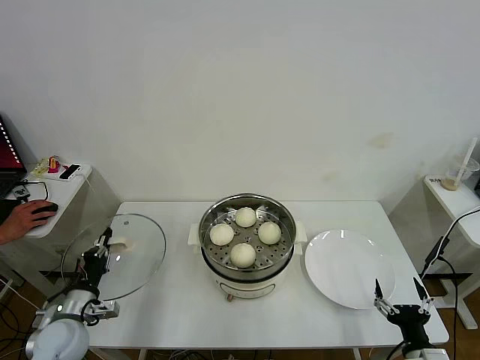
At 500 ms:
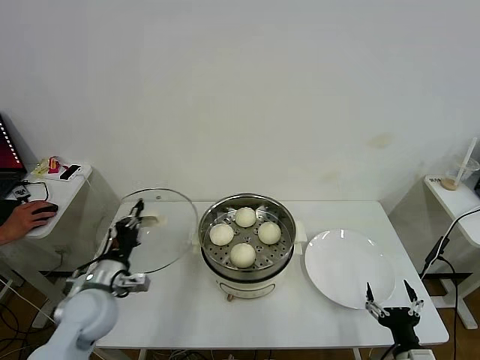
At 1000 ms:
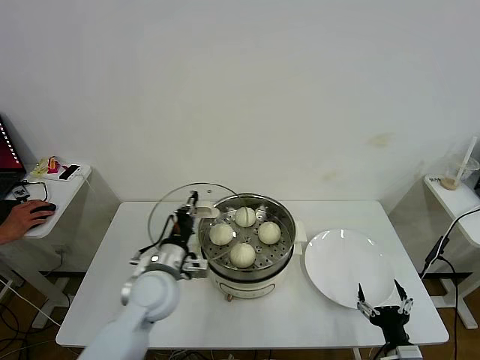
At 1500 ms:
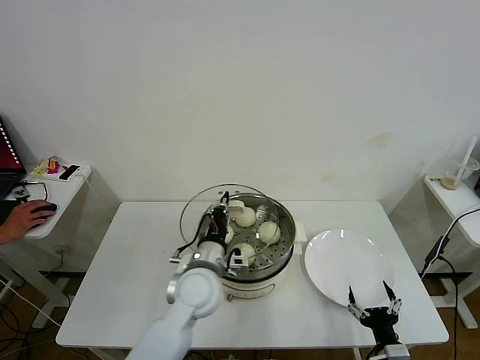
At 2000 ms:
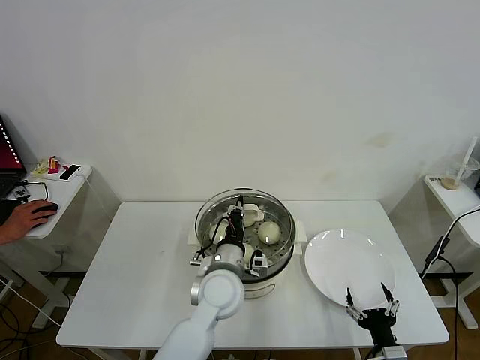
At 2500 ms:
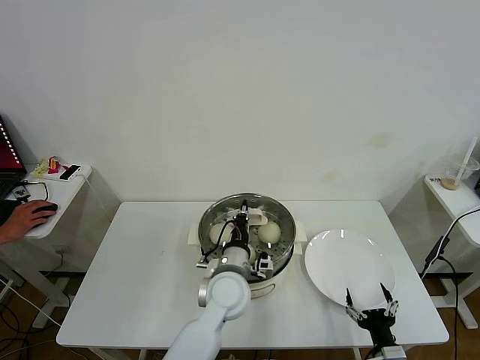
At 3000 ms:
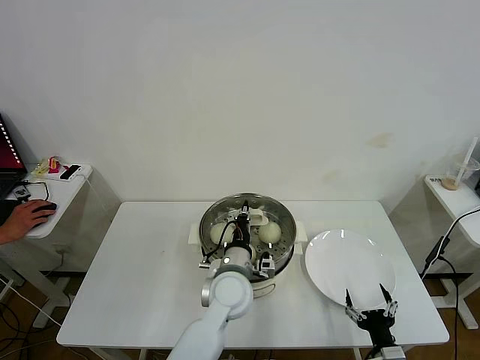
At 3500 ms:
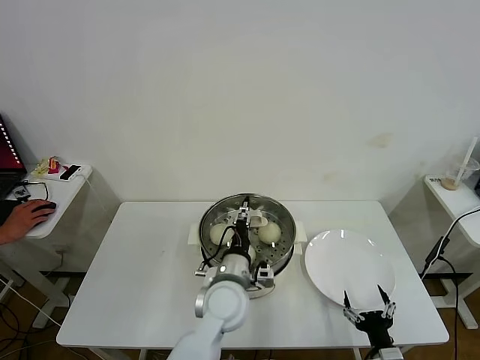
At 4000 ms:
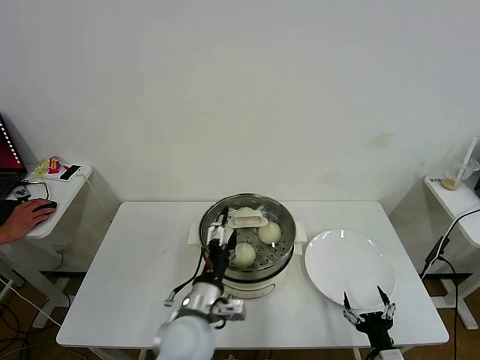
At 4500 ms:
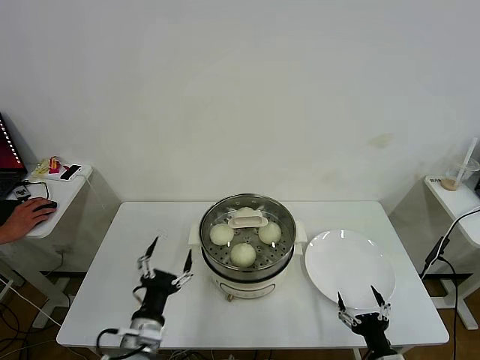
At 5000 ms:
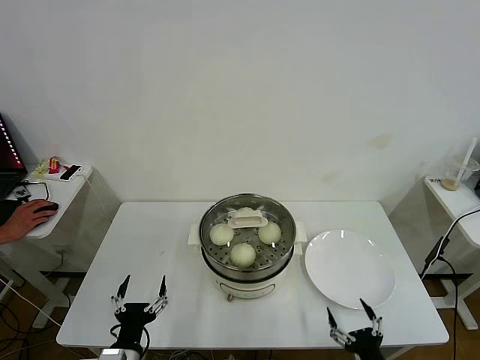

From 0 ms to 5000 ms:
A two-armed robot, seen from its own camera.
Task of the whole recording: take steamed baozi put them in steamer then cover it.
Step, from 0 ms to 3500 ms: Place the pot lid on the steamer with left gripper.
From 0 ms to 2500 ms: The right gripper shifts by some 5 cm. Meanwhile the left gripper heads to the right, covering about 35 cm.
From 2500 ms to 5000 ms: The left gripper travels to the left, backward and downward by approximately 30 cm, and opens its fingers.
